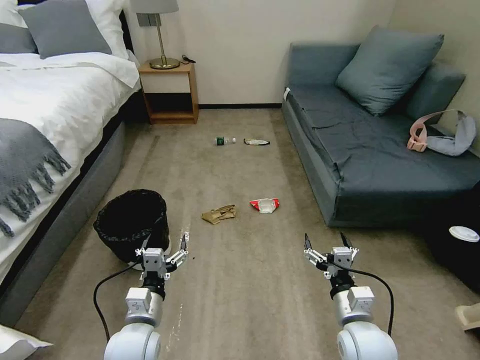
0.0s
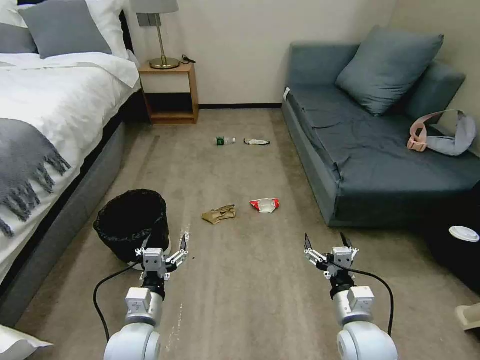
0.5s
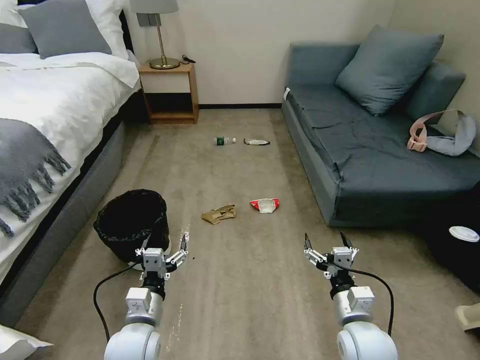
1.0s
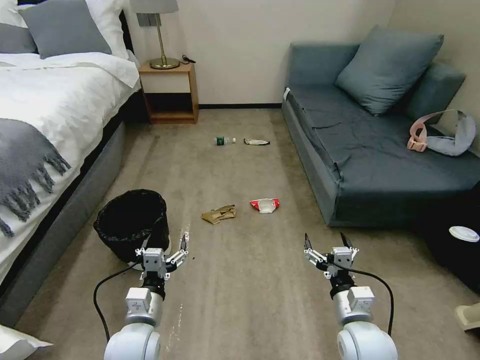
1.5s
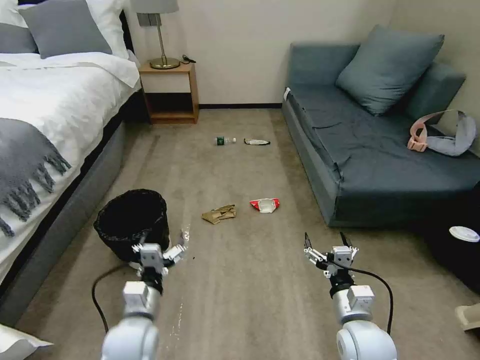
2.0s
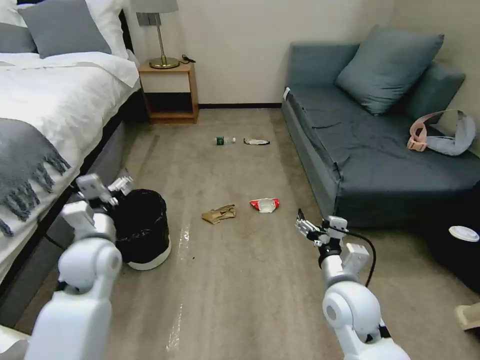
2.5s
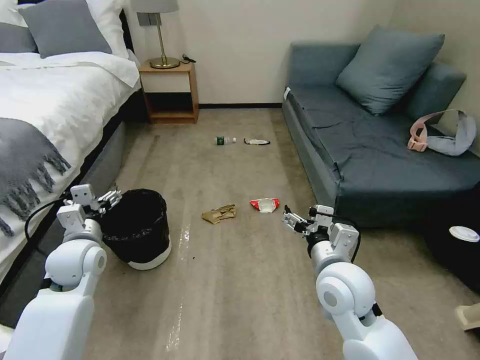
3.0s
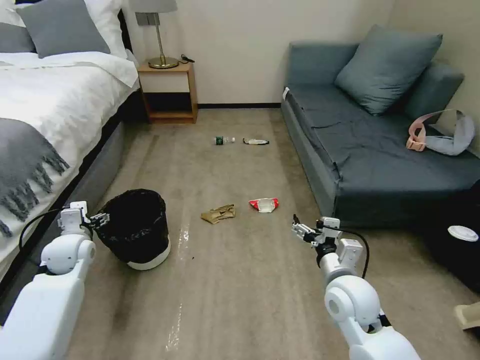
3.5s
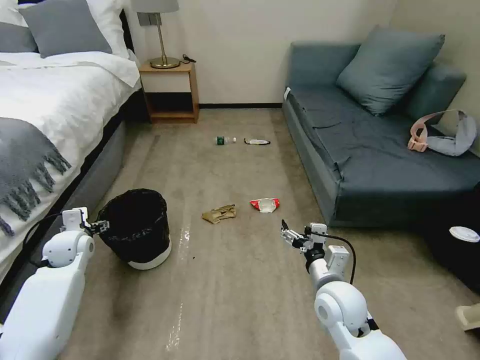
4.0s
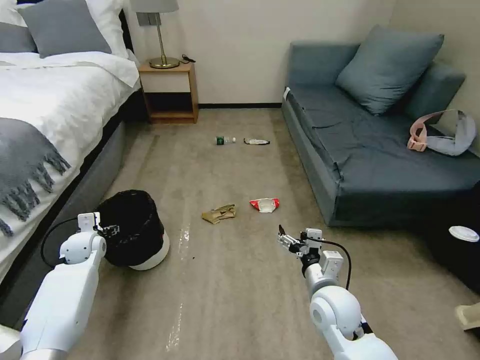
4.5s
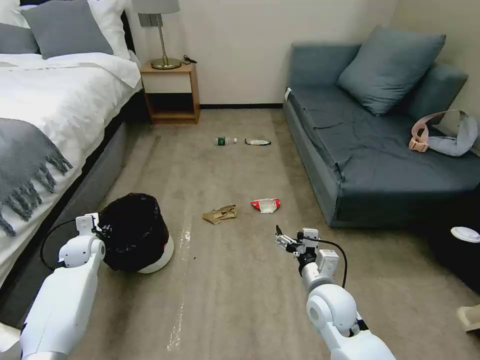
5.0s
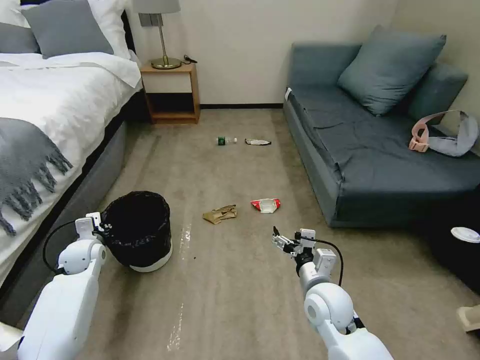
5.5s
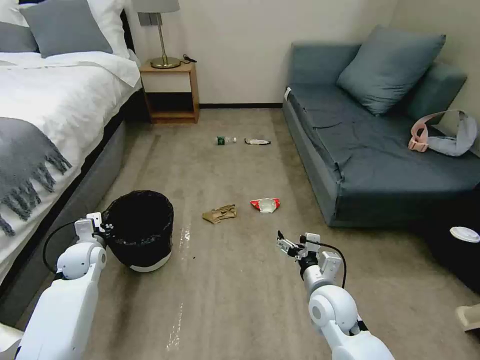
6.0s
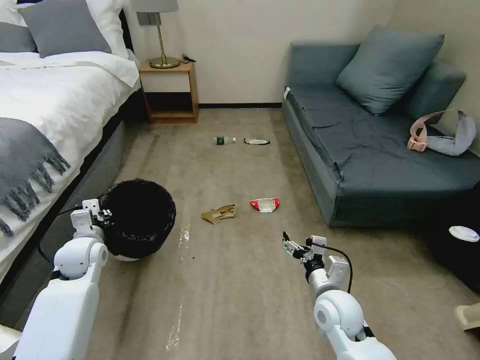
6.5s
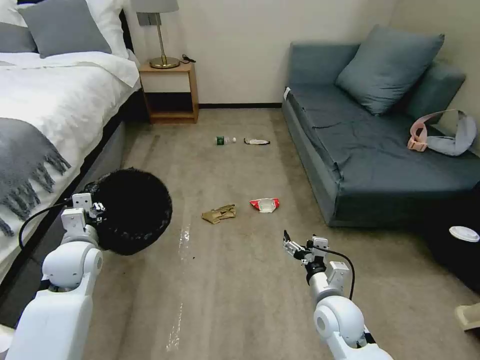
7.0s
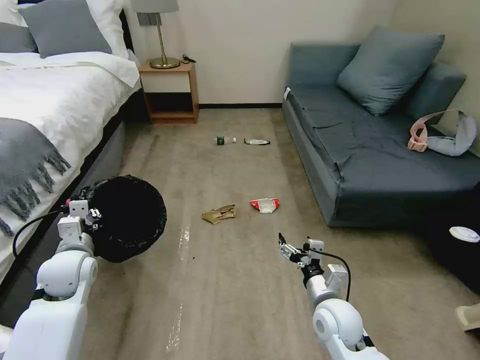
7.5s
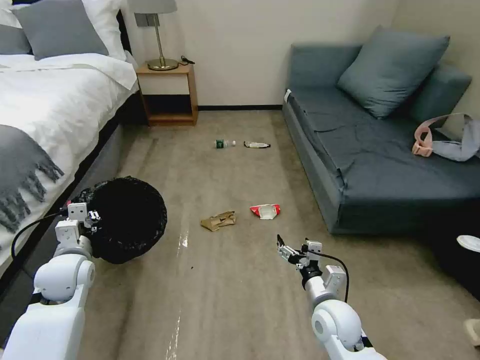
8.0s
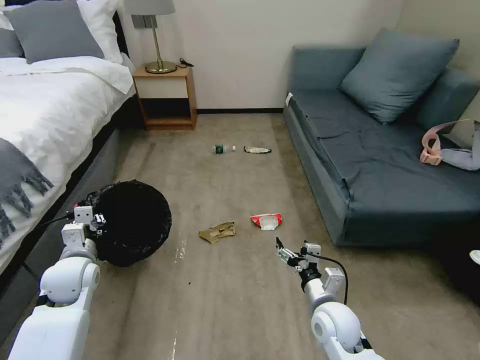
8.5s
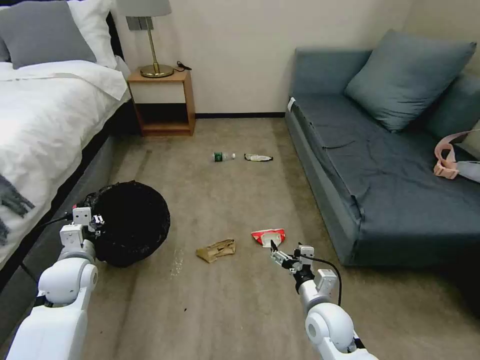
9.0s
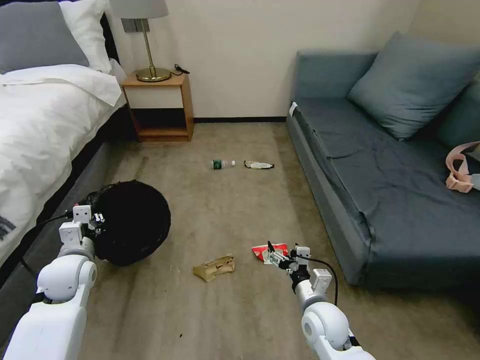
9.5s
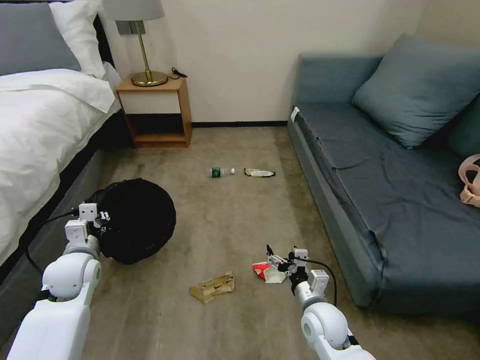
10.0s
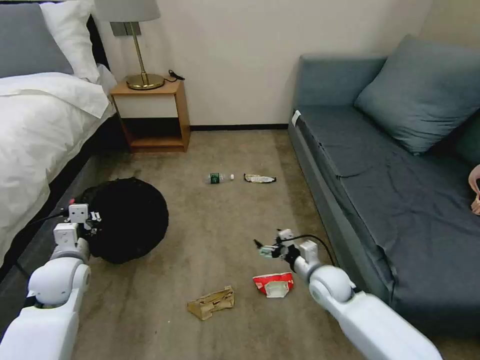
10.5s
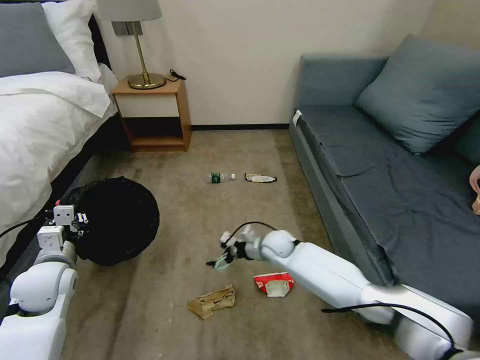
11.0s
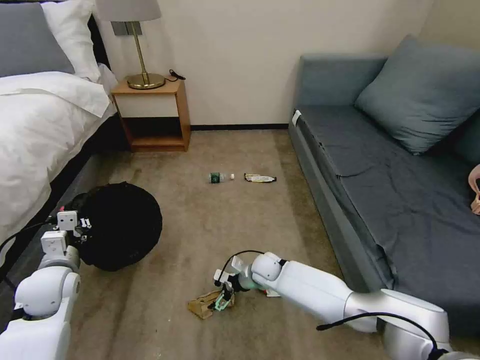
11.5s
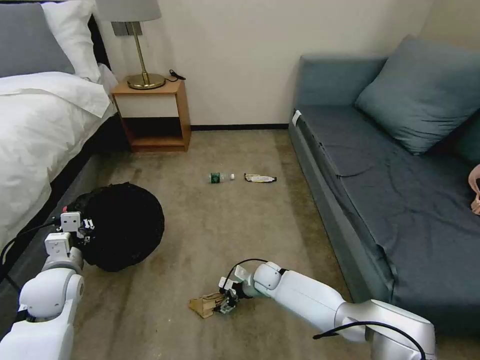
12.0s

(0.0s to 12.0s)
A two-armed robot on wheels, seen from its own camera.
Task of the whole recording: Pick up the trash bin, then pick up the garbage on the floor and place it into the trash bin.
2.0s - 4.0s: The left gripper is displaced to the left and forward by about 30 cm. Meanwhile the right gripper travels forward by about 5 cm, and goes upward and returns, roughly 10 cm each way.
4.0s - 6.0s: The left gripper closes.
6.0s - 8.0s: The left gripper is displaced backward and upward by approximately 10 cm.
10.0s - 12.0s: The right gripper travels forward, downward and to the left by roughly 20 cm.

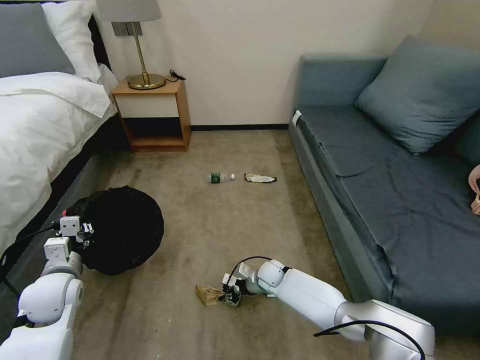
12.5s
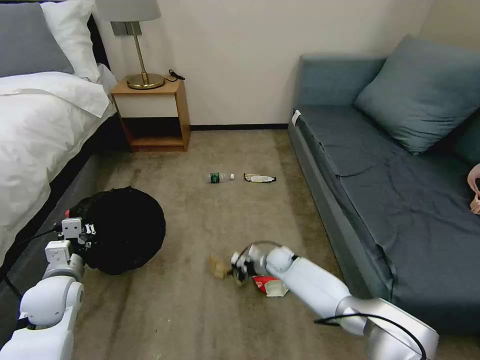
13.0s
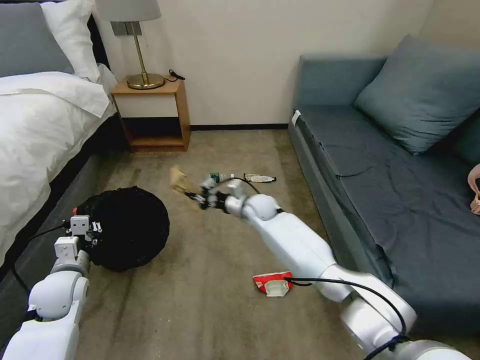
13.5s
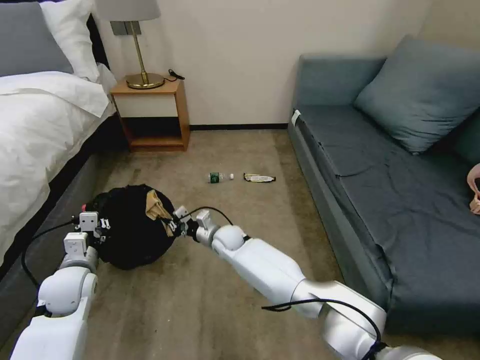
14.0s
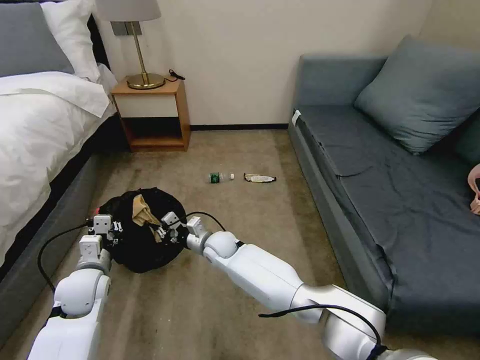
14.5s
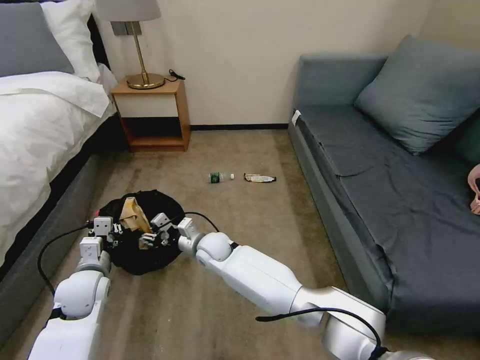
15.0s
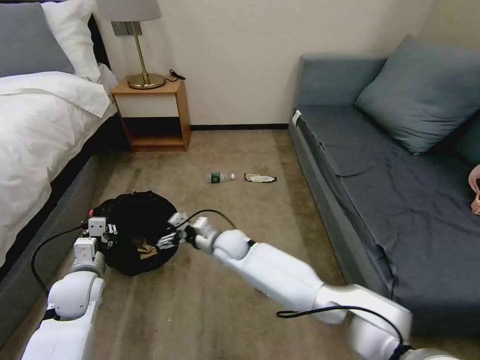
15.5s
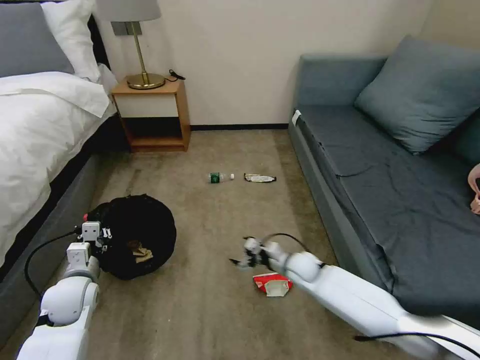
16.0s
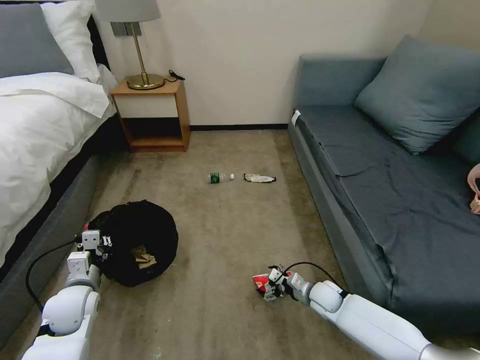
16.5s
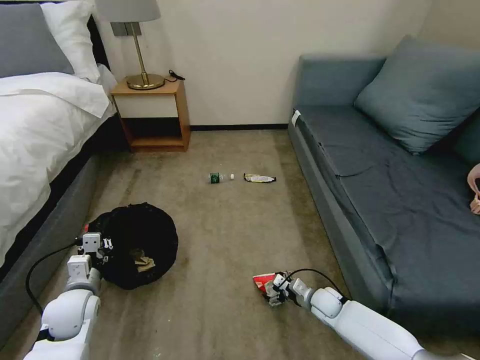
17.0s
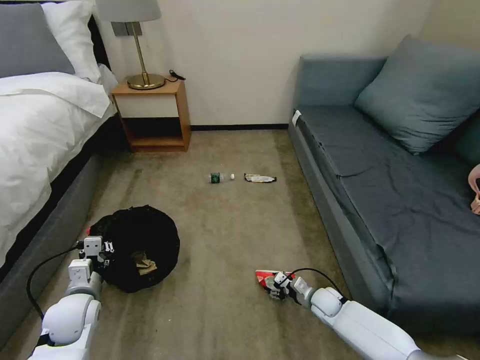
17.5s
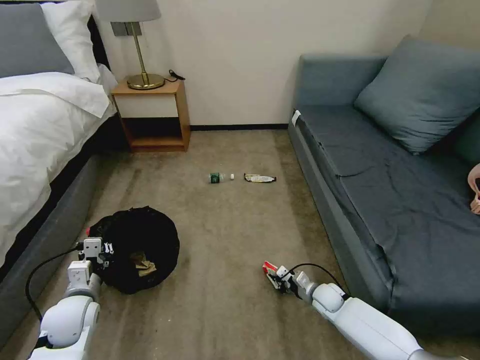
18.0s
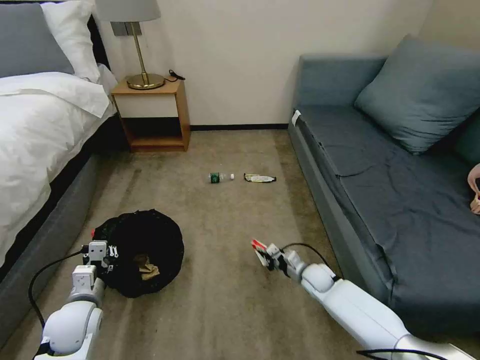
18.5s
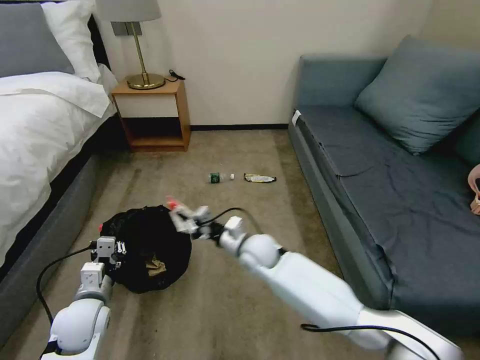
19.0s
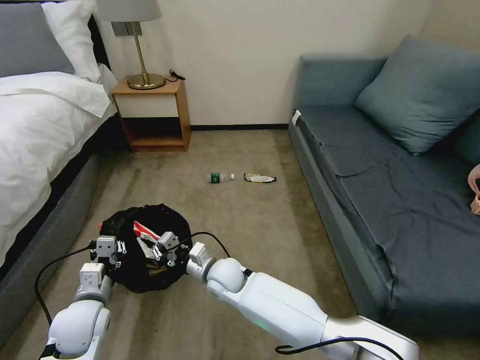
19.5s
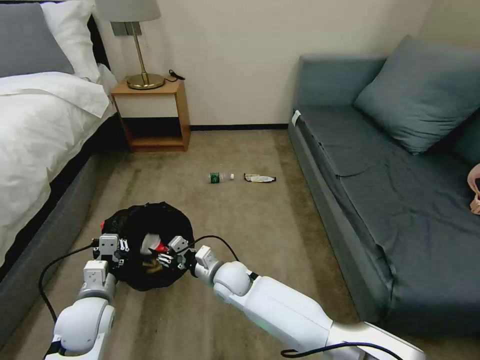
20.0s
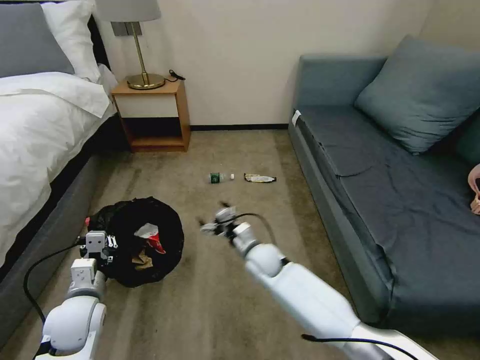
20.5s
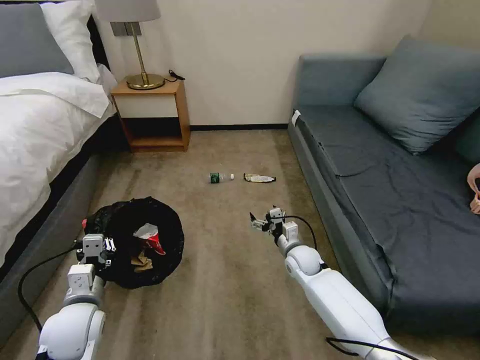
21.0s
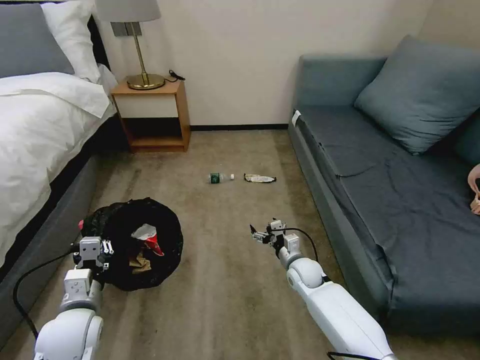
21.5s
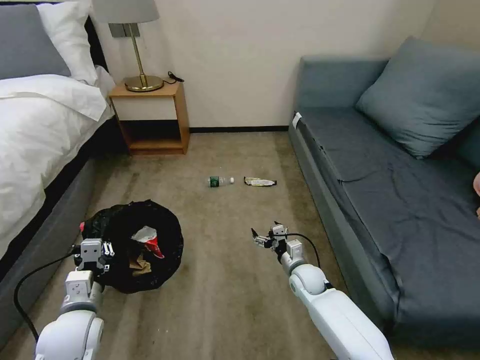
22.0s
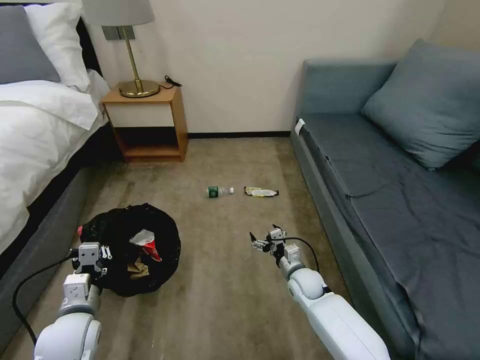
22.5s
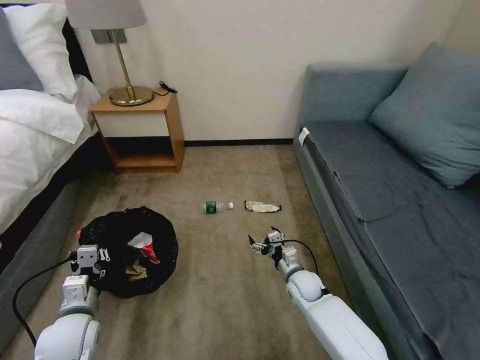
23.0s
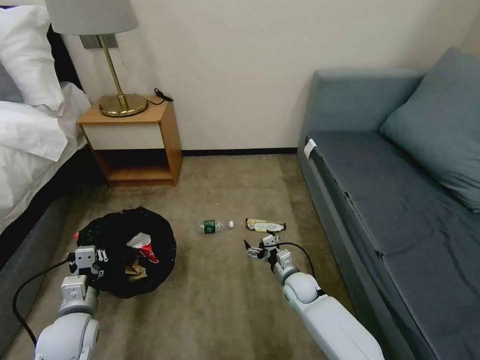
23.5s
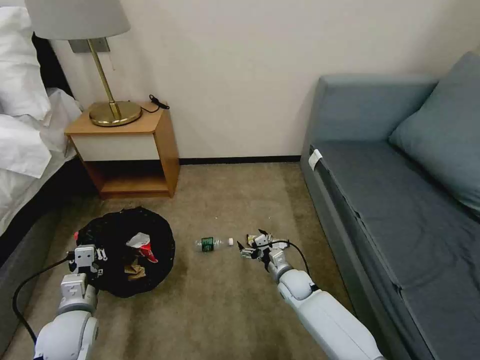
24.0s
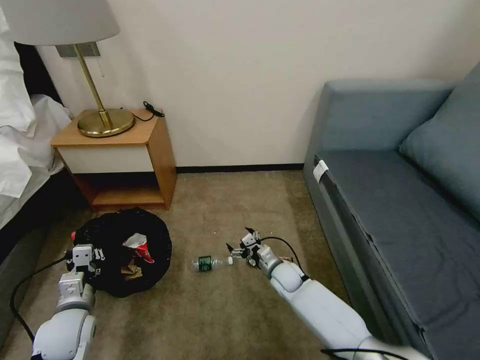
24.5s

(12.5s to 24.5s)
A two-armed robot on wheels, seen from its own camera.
Task of the whole recording: Pick up the trash bin, then pick up the garbage on the floor and place it into the trash bin.
12.5s - 14.5s: The left gripper changes place by about 5 cm; the right gripper heads to the left and upward, covering roughly 20 cm.
14.5s - 16.5s: The right gripper is displaced to the right by approximately 30 cm, and opens its fingers.
16.5s - 18.5s: The right gripper ends up approximately 5 cm from where it was, and closes its fingers.
18.5s - 20.5s: The right gripper shifts approximately 20 cm to the left and upward, and opens up.
20.5s - 22.5s: The right gripper goes approximately 15 cm to the right and downward.
22.5s - 24.5s: The right gripper ends up approximately 5 cm from where it was.

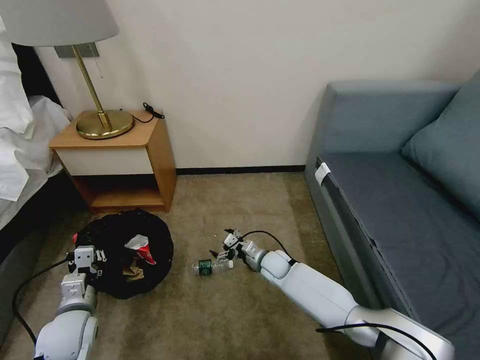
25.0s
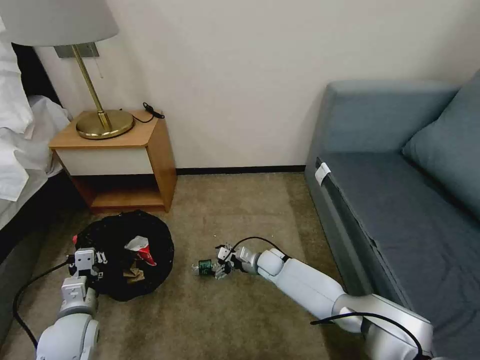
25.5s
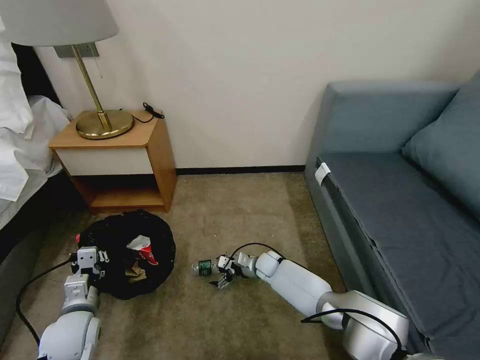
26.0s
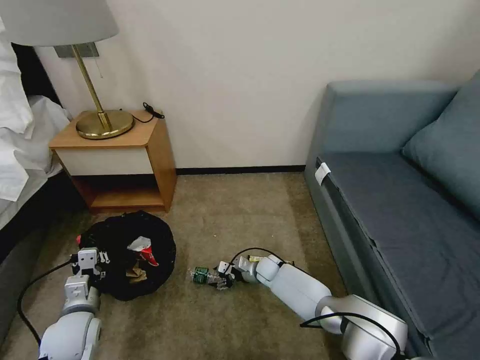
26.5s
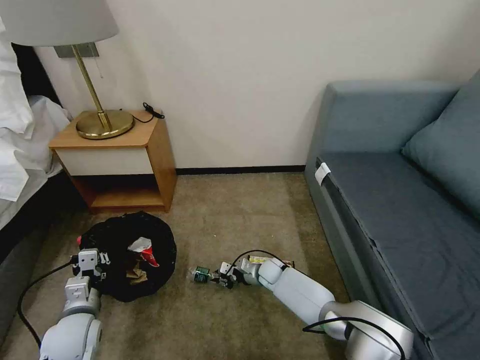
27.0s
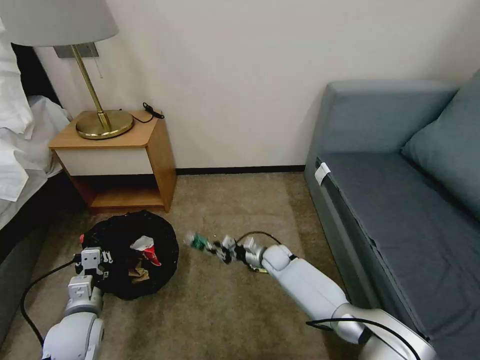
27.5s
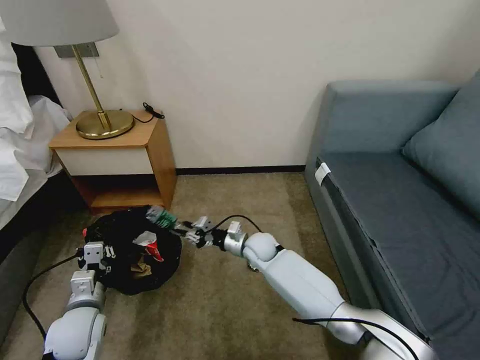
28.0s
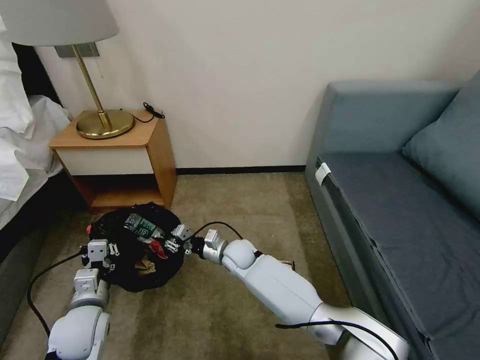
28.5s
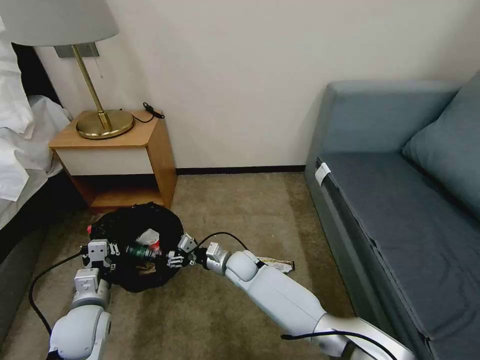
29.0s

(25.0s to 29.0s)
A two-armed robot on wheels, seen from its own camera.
Task of the whole recording: Pick up the trash bin, then pick up the garbage on the floor and place it into the trash bin.
25.0s - 27.0s: The right gripper heads downward, covering about 5 cm, and closes its fingers.
27.0s - 29.0s: The right gripper is displaced to the left and upward by approximately 15 cm, and opens.
